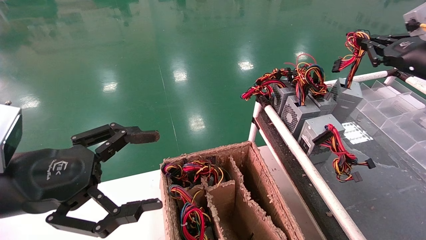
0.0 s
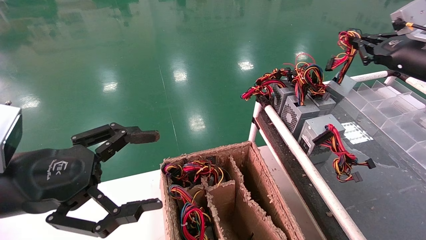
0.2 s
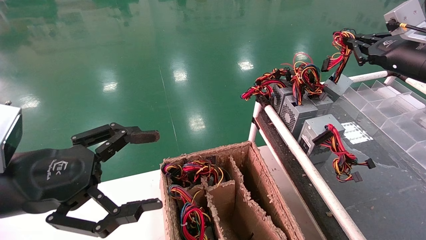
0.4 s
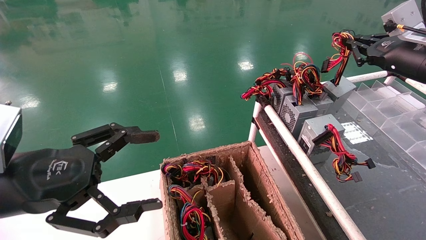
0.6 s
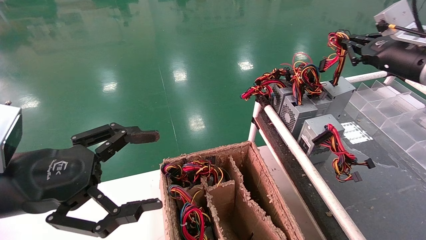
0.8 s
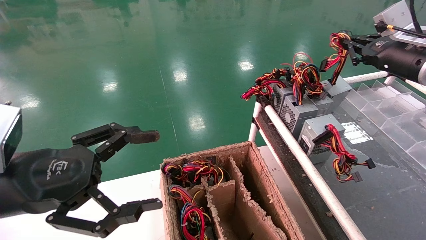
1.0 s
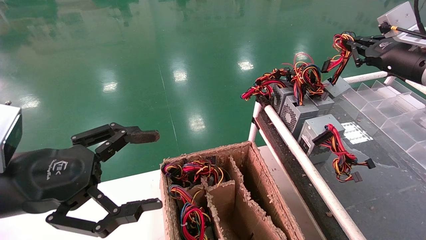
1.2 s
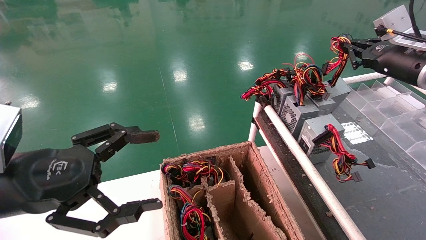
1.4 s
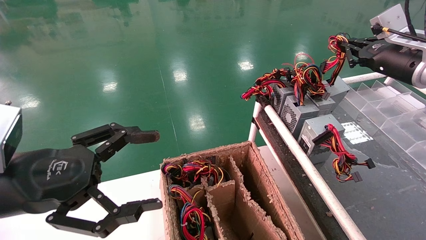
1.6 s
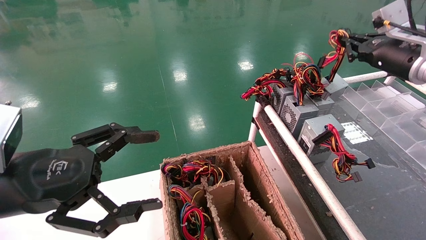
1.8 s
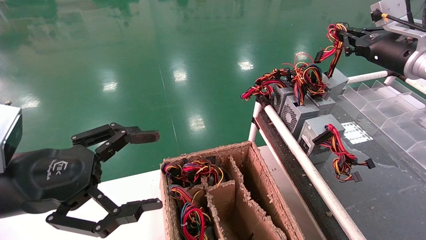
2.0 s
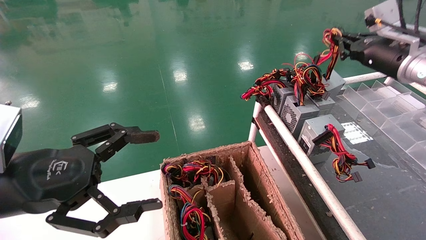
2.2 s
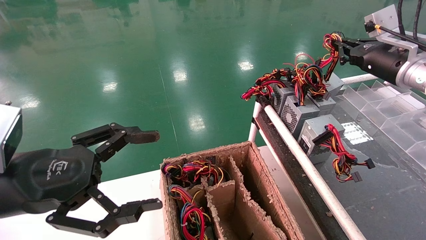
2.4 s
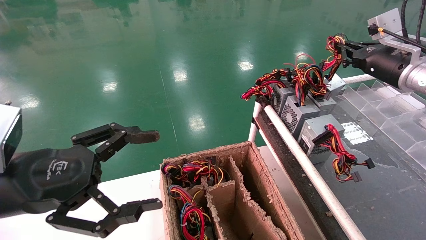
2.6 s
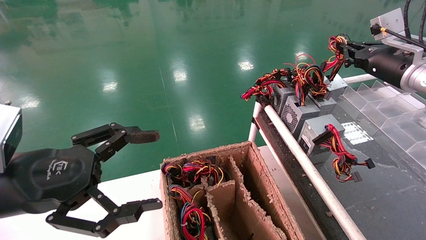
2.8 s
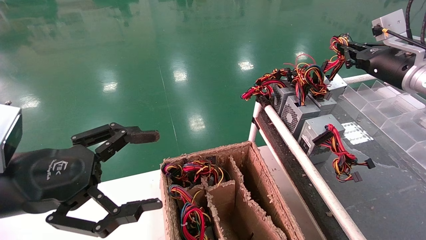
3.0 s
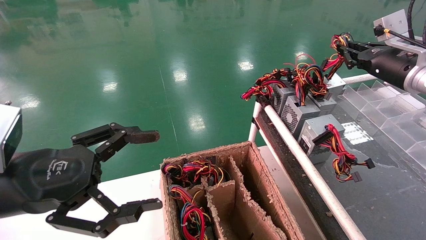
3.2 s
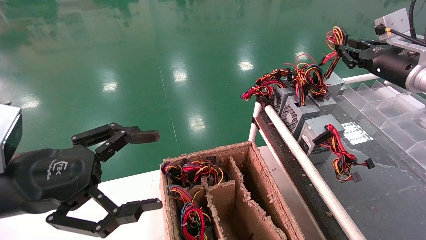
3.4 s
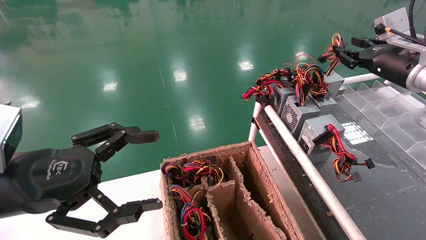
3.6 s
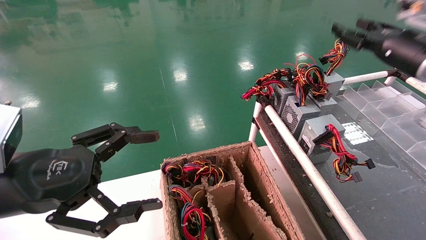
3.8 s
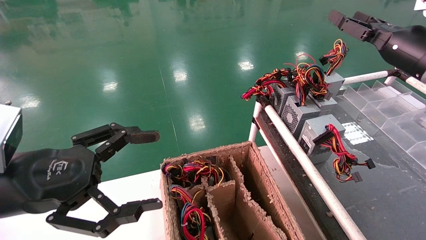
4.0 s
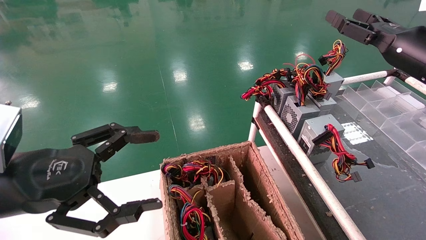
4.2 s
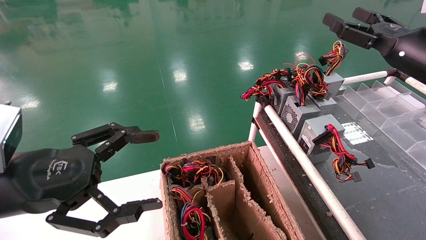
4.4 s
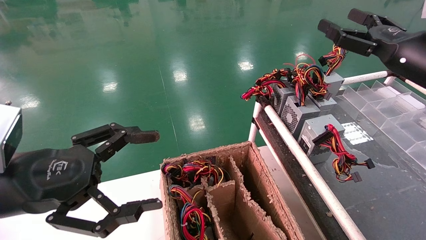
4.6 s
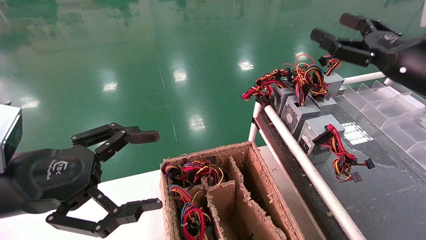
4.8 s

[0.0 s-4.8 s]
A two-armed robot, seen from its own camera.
Step, 0.0 to 3.2 s: Place the power supply on the operating table.
0.0 to 1.6 s: The right gripper shifts by about 5 cm.
1.6 to 3.2 s: The grippers move only a little.
3.2 to 4.8 s: The right gripper travels backward by roughly 10 cm, and opens its fingers.

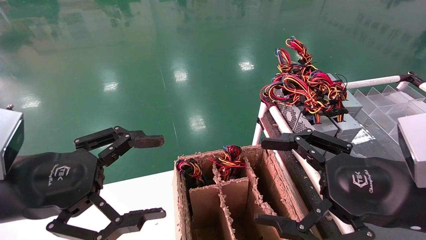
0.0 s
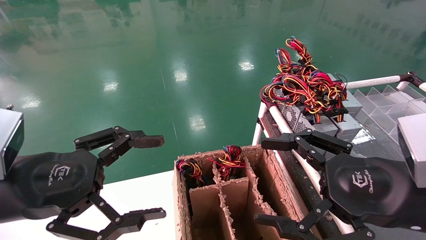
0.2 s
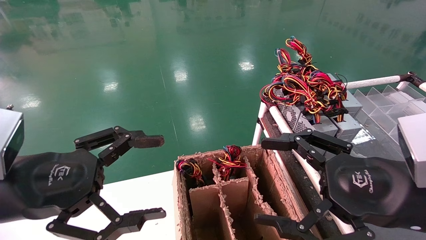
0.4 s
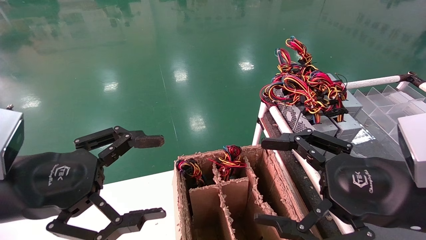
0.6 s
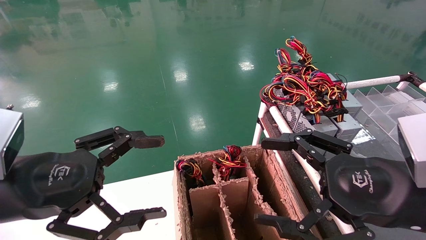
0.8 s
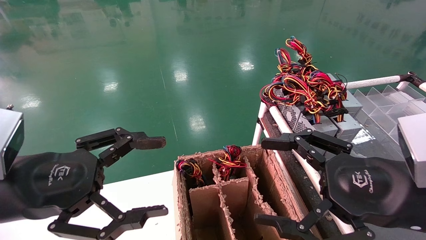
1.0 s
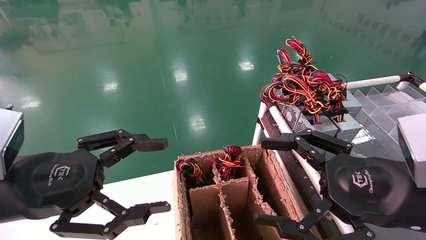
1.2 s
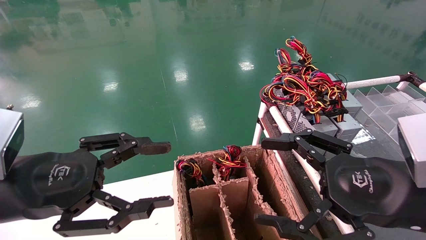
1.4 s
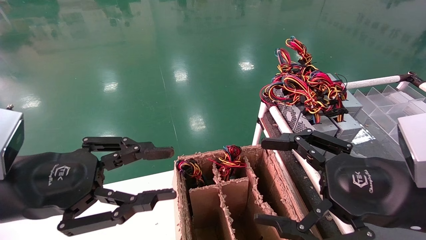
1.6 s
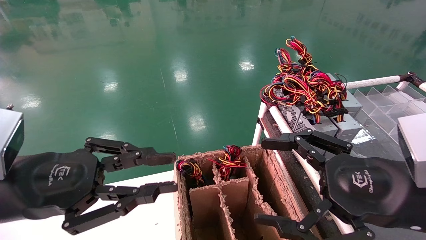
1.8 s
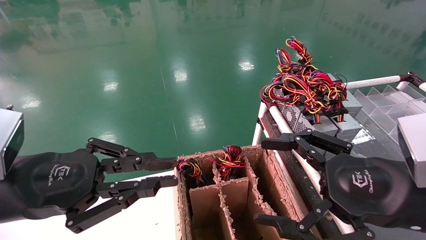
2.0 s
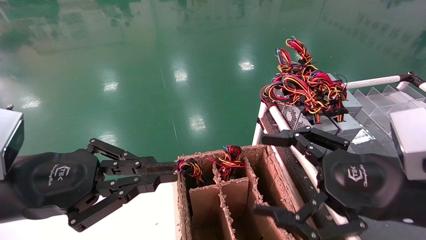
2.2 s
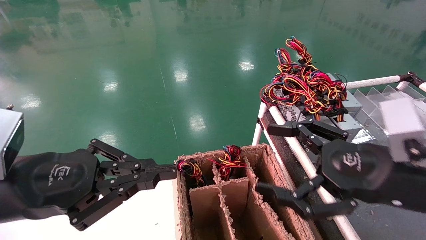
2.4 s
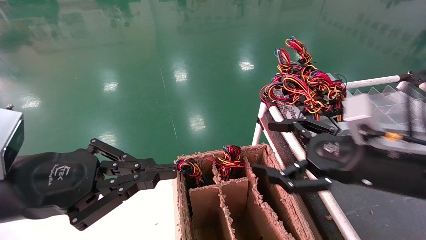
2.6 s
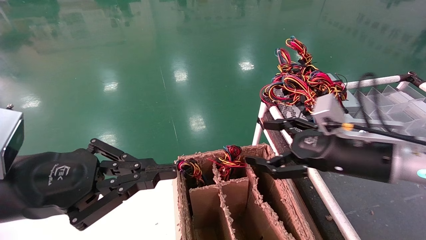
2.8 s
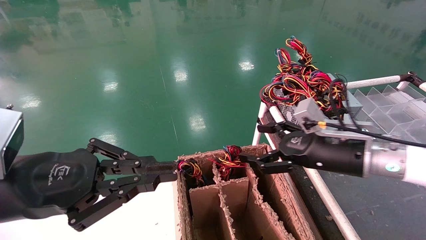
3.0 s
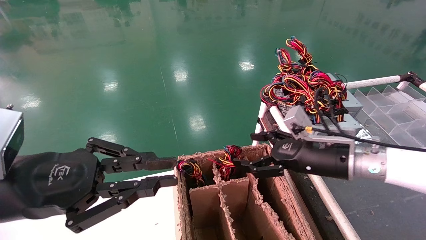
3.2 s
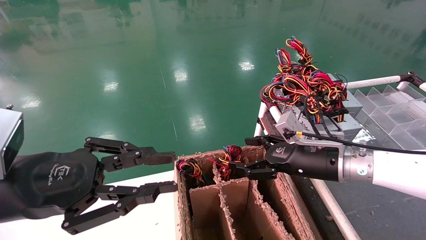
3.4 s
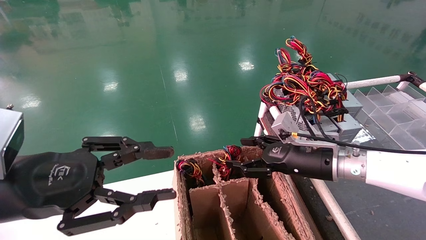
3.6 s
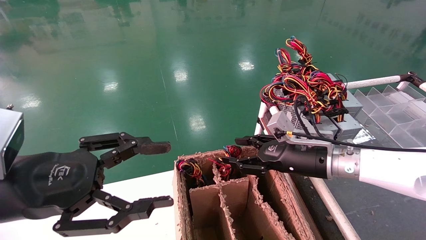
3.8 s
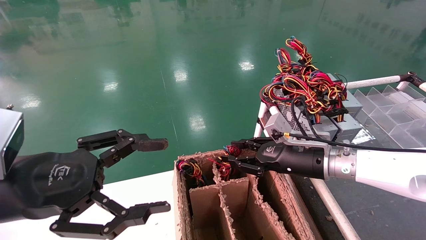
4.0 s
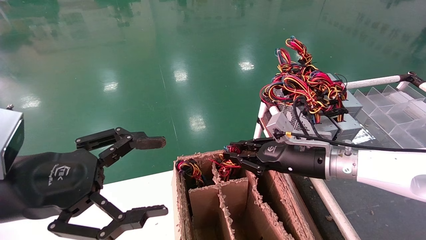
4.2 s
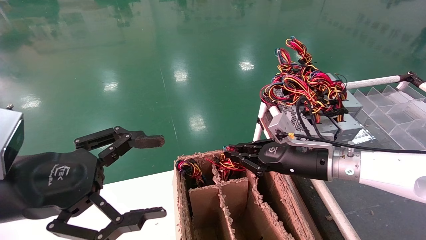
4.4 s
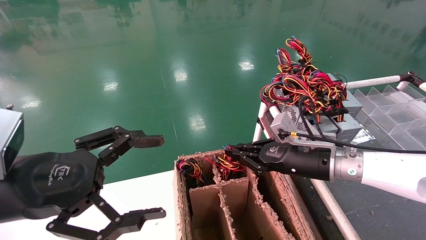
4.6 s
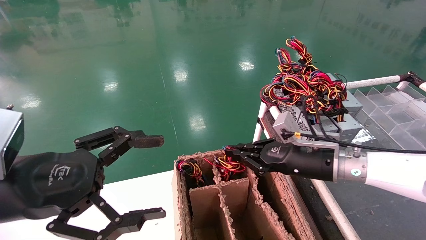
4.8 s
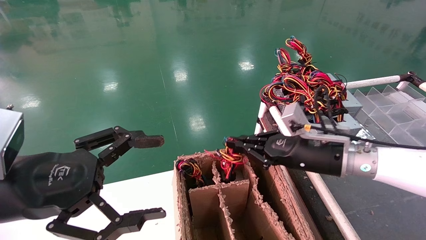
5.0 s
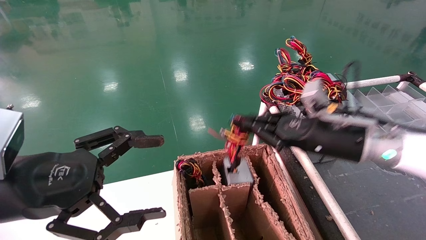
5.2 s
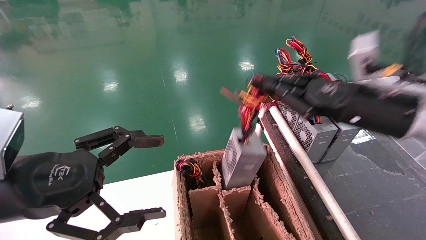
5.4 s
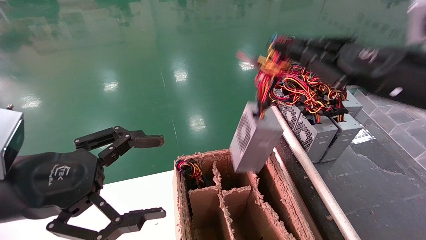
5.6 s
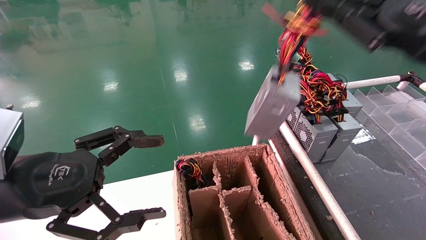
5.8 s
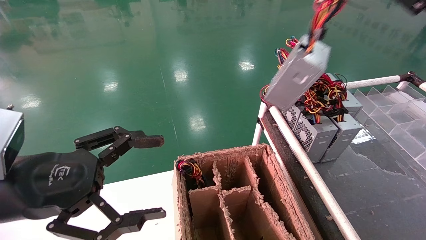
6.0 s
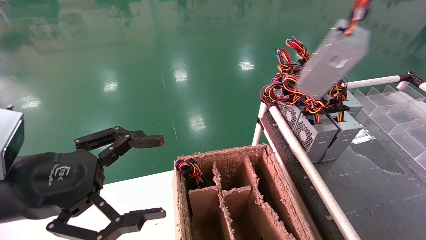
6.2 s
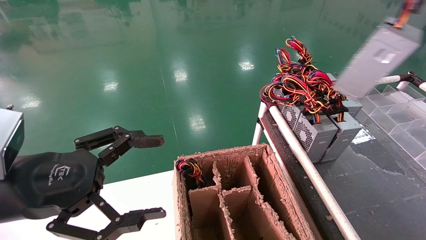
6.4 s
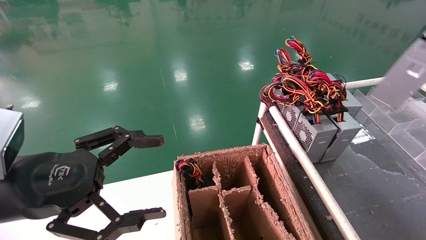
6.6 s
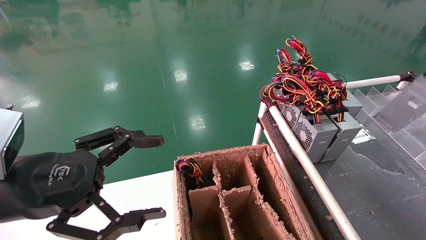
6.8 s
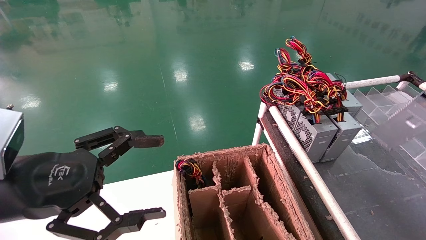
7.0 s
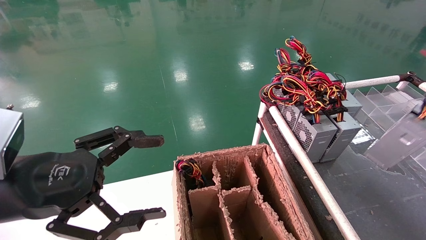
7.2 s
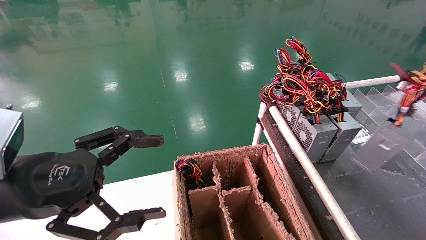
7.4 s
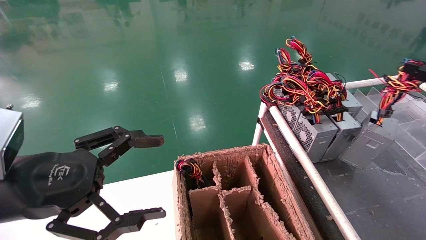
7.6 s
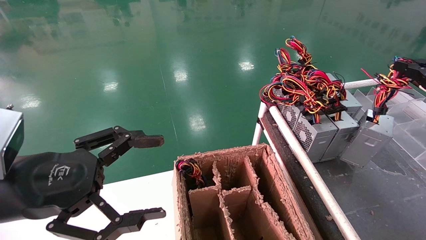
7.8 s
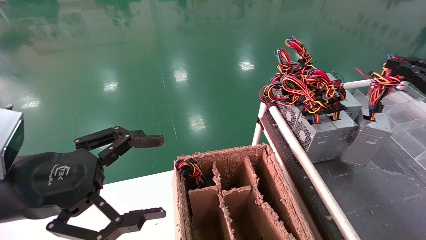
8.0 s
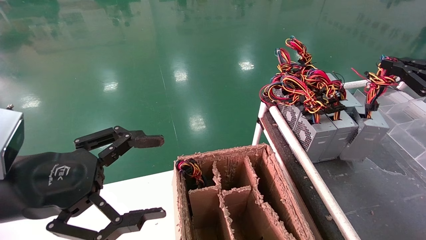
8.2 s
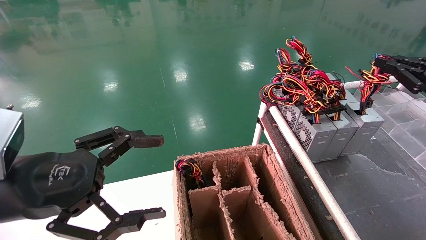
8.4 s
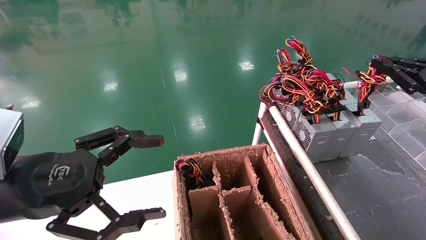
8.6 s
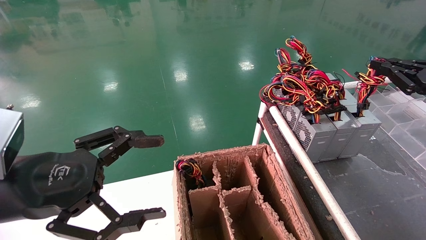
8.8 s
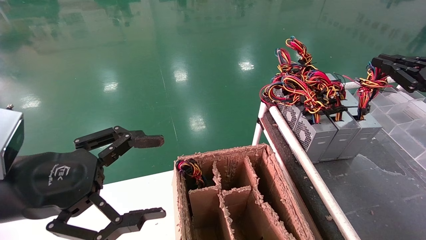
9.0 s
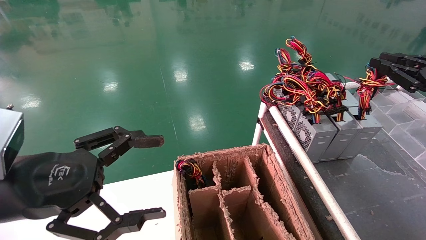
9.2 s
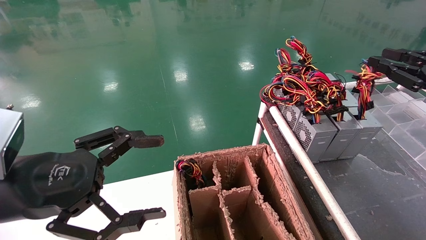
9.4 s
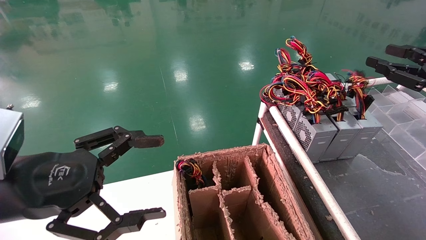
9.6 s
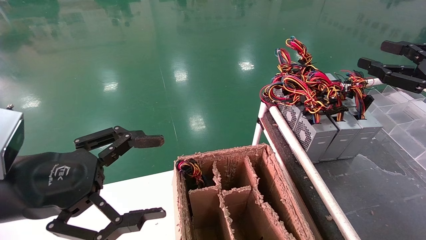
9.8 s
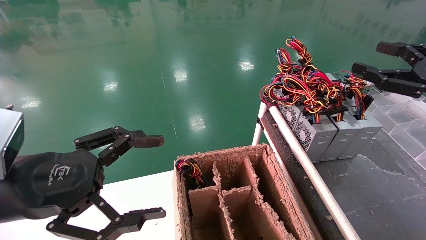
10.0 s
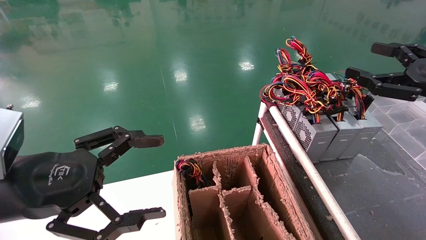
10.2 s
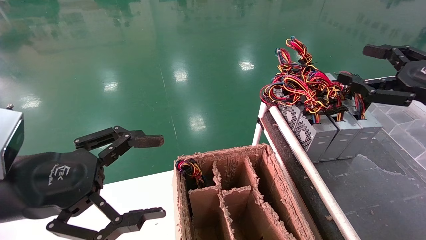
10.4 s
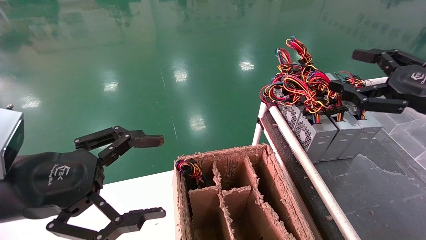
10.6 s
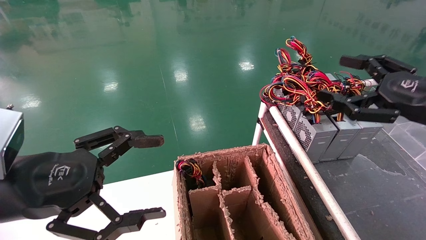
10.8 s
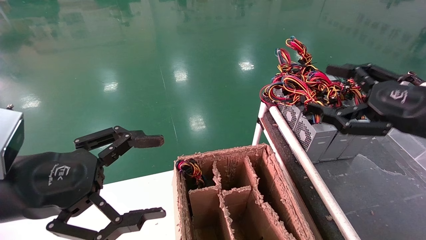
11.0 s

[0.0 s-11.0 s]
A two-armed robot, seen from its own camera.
Step, 2.4 to 4.6 s: Grab and lift the power supply from the large box.
Step, 4.8 to 9.0 s: Place the power supply on the operating table.
0.0 to 1.6 s: The left gripper closes up.
1.6 to 3.2 s: The left gripper closes its fingers, while the right gripper goes about 15 cm forward.
3.2 to 4.8 s: The right gripper closes. The left gripper opens its fingers.
4.8 to 6.2 s: The right gripper goes roughly 35 cm upward, to the right and backward.
6.2 to 7.8 s: The right gripper moves downward and to the right, some 15 cm.
7.8 to 9.4 s: There are only small adjustments of the grippers.
9.4 to 11.0 s: The right gripper heads to the left, covering some 10 cm, and opens up.

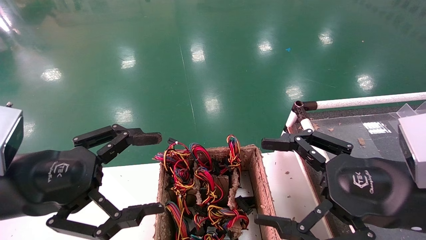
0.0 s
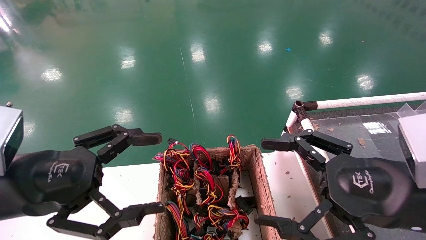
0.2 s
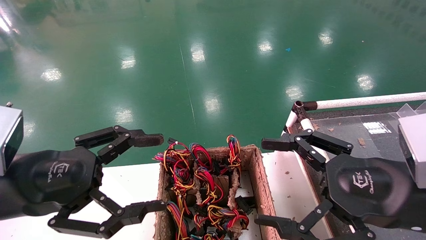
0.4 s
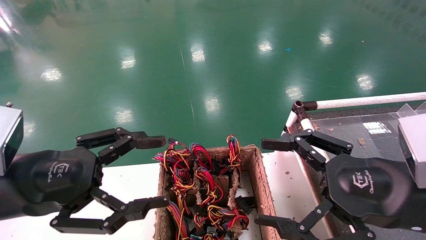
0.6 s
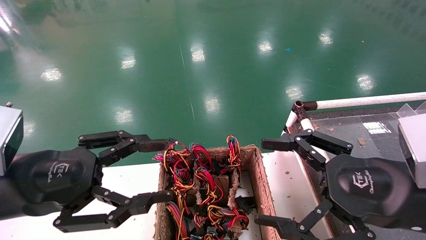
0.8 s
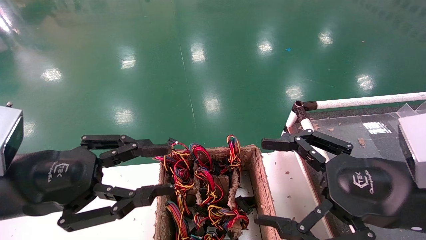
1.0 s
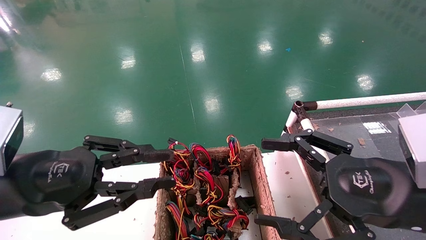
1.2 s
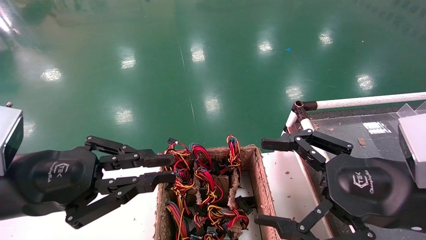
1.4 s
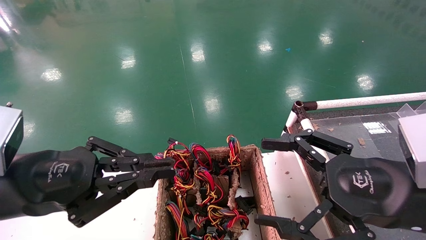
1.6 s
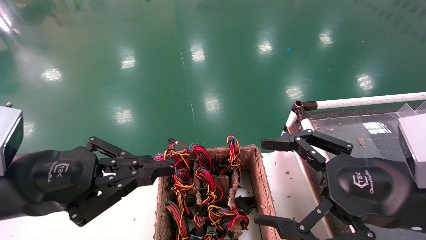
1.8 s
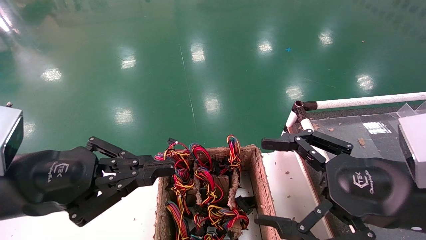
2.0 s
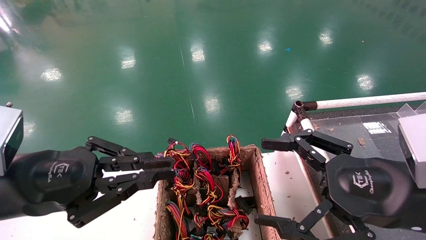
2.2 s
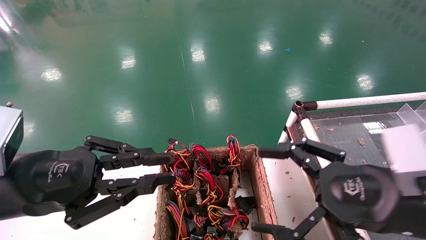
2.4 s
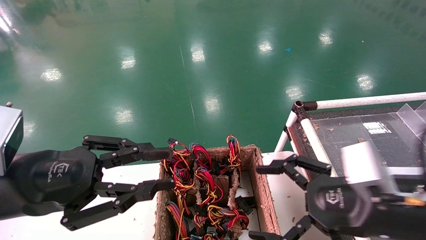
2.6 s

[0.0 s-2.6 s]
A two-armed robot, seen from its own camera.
0.0 to 1.2 s: The left gripper closes up.
1.2 to 2.6 s: The grippers move only a little.
